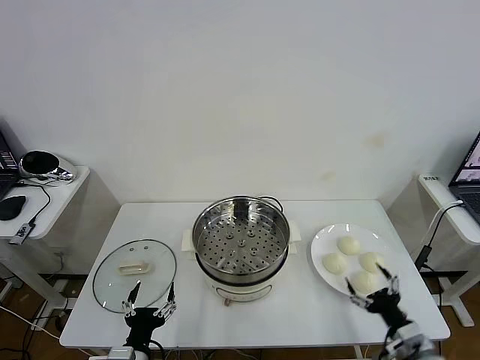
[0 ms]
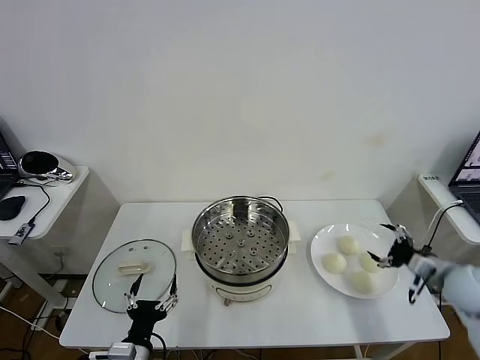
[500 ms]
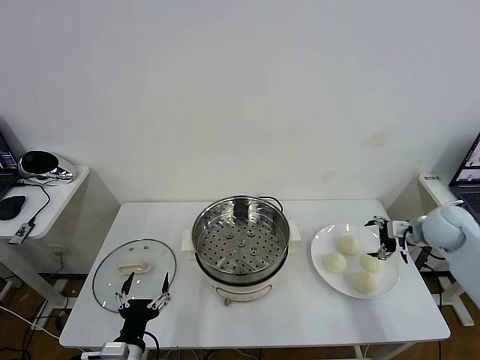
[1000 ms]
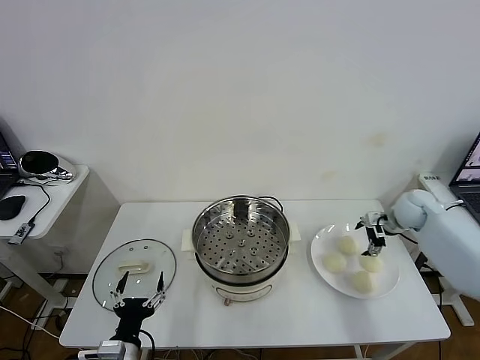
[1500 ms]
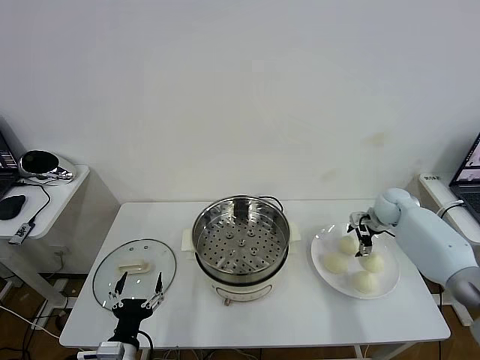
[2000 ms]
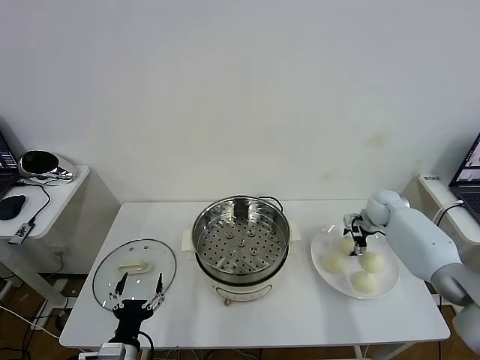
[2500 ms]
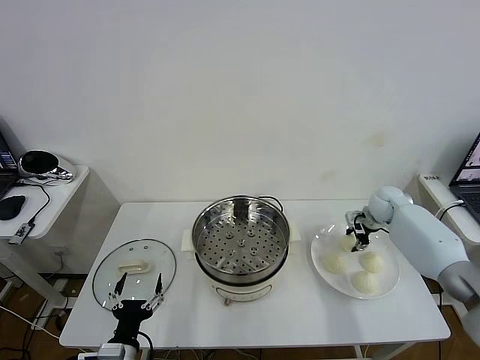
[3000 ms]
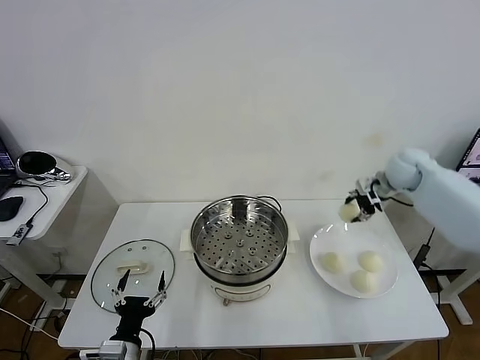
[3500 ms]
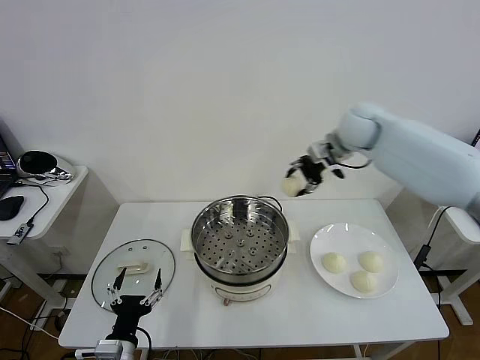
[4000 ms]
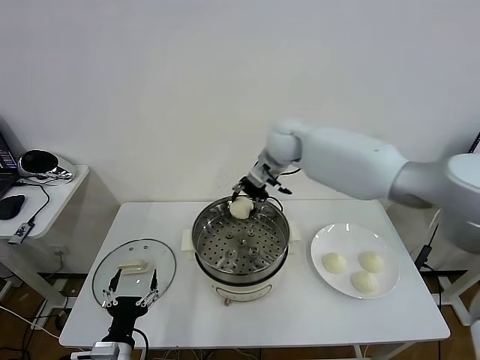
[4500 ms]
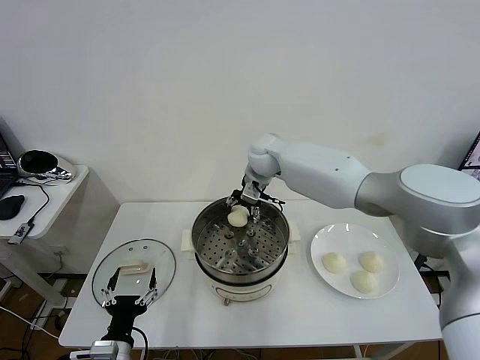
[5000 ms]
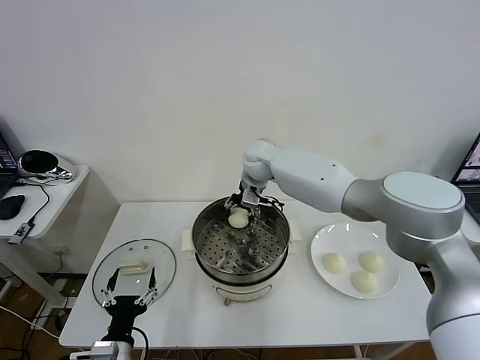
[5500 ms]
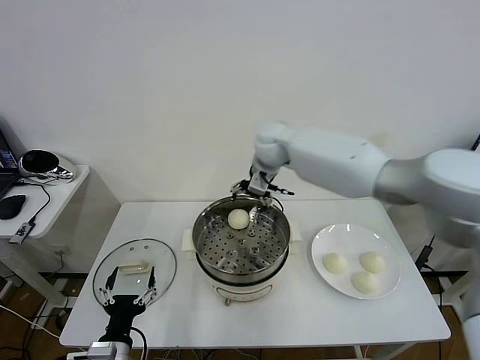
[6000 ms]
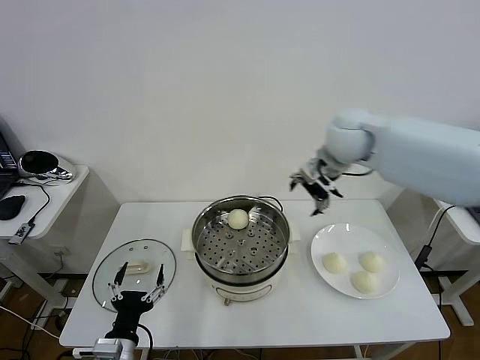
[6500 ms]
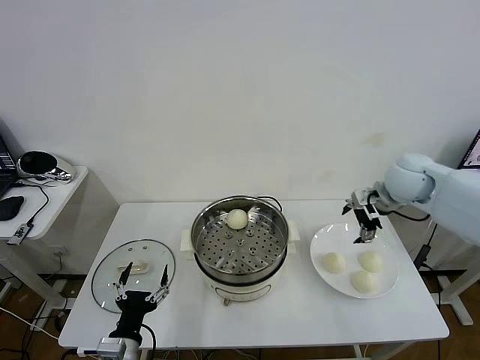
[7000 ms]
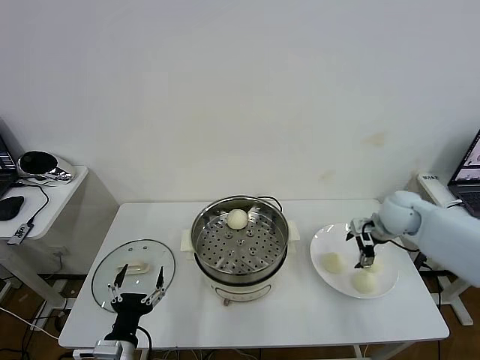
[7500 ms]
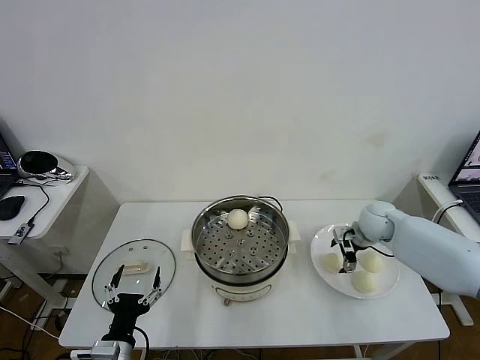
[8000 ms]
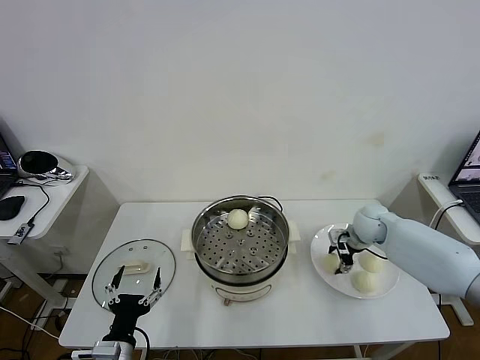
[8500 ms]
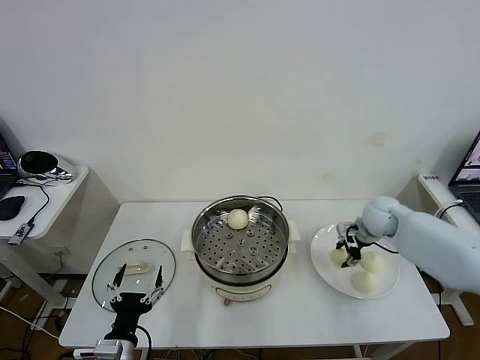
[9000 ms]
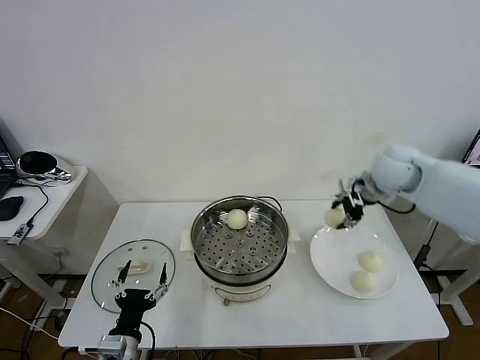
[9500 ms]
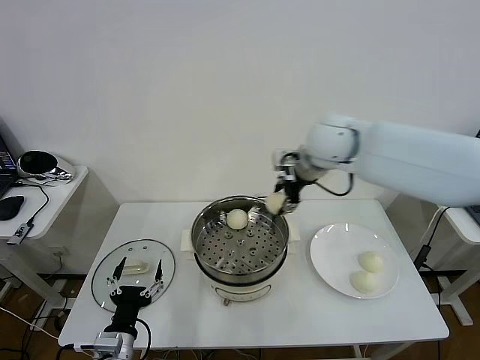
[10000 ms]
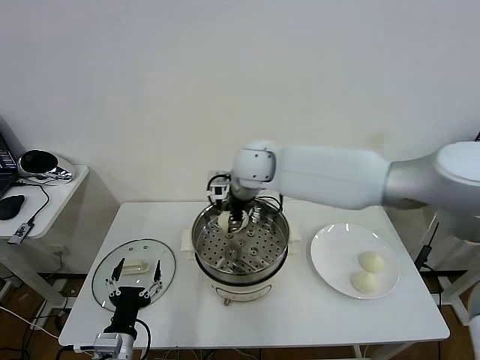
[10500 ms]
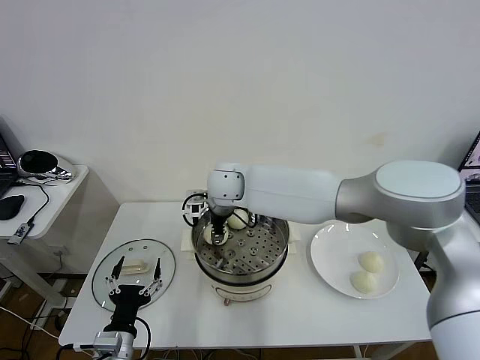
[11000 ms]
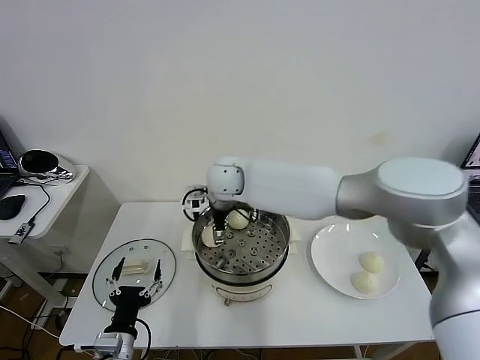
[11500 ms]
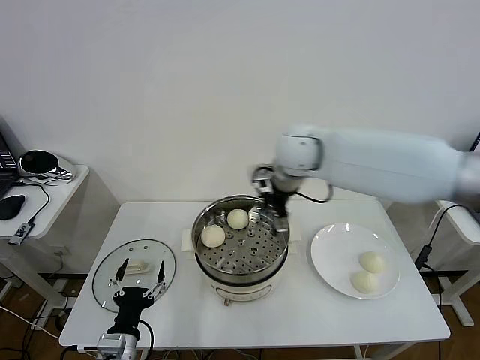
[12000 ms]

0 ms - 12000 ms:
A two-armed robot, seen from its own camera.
Task of the whole recording: take steamed baozi put them in steamer then cover it.
Step, 0 ms - 2500 ms: Grasp the baozi in the plate with right gripper.
Step, 3000 ms - 5500 ms: Place the baozi on the steamer with right gripper.
Step, 6000 ms - 8500 ms: Grasp the baozi in the plate with right gripper.
Step, 9000 ms - 11500 ms: Place the baozi on the steamer with right gripper.
2000 ms - 4000 ms: The right gripper moves upward and to the left, some 30 cm, and closes.
4000 ms - 6000 ms: The right gripper shifts roughly 10 cm to the left, and opens up.
6000 ms - 8000 ms: The right gripper is displaced to the right and downward by about 30 cm.
8000 ms - 10000 ms: The right gripper goes roughly 30 cm upward and to the left, and closes its fingers.
10000 ms - 12000 ms: The right gripper goes to the left and returns, roughly 15 cm each way, and opens up.

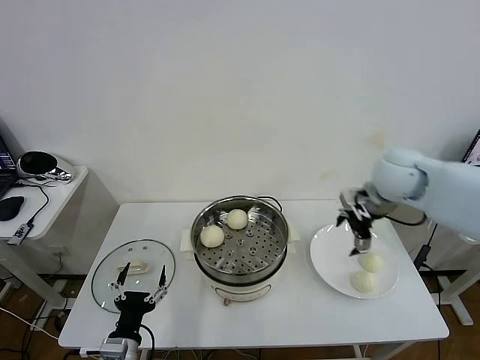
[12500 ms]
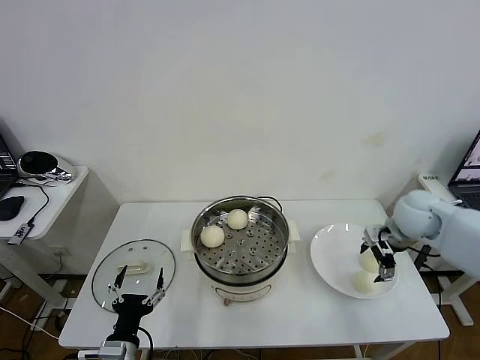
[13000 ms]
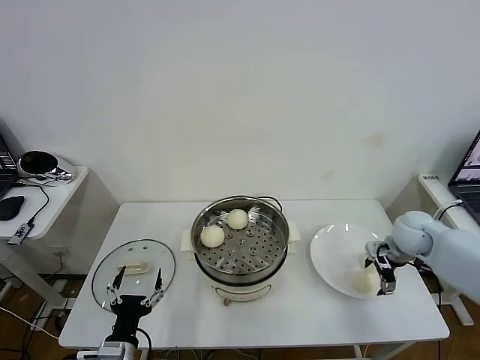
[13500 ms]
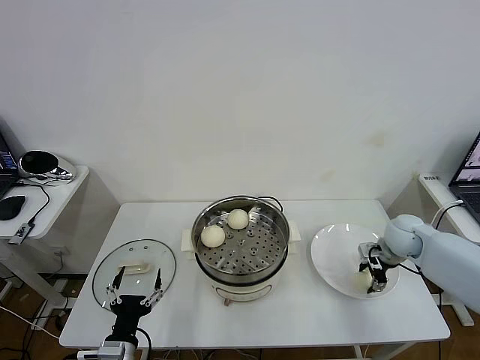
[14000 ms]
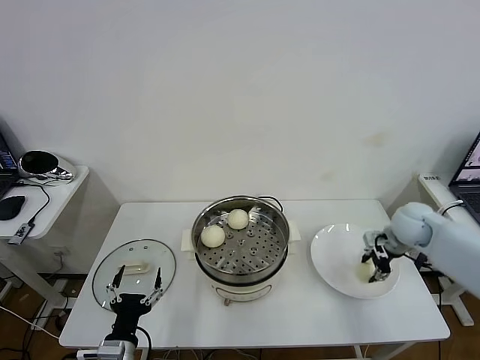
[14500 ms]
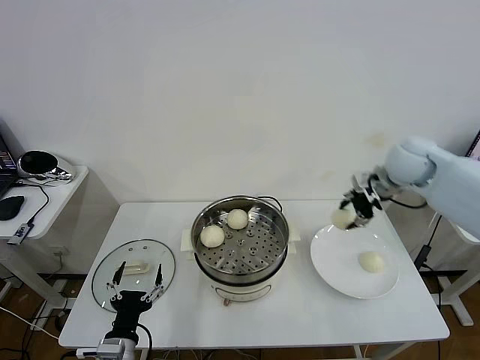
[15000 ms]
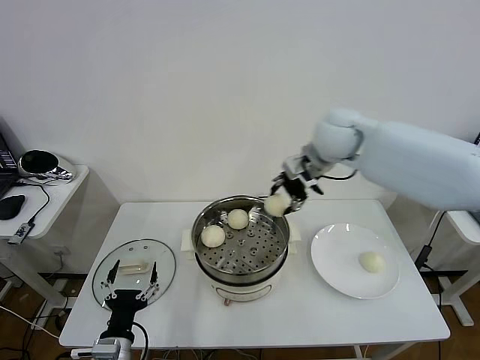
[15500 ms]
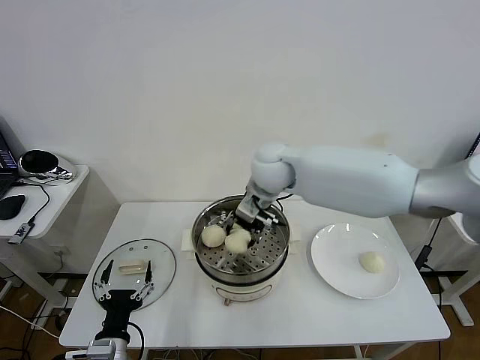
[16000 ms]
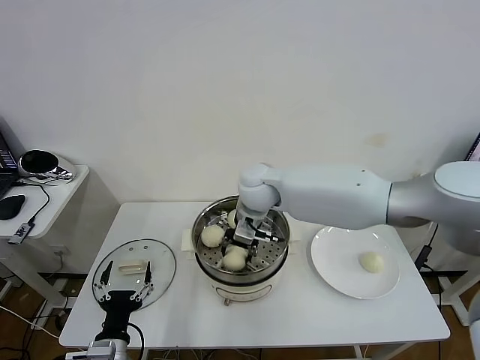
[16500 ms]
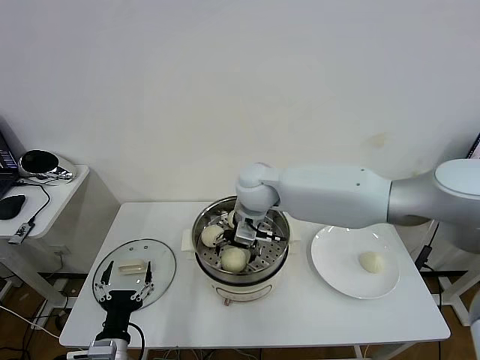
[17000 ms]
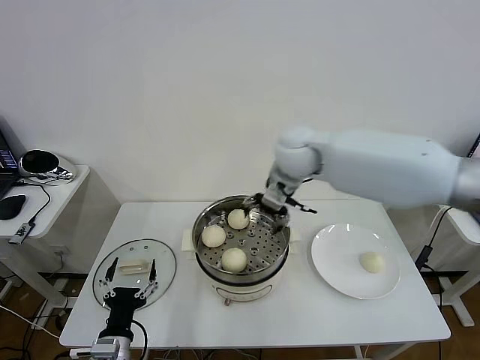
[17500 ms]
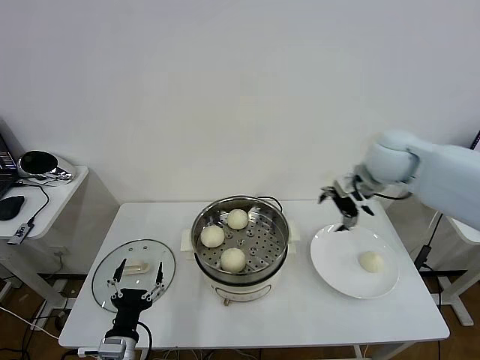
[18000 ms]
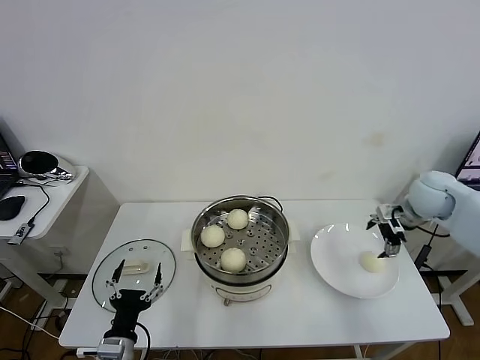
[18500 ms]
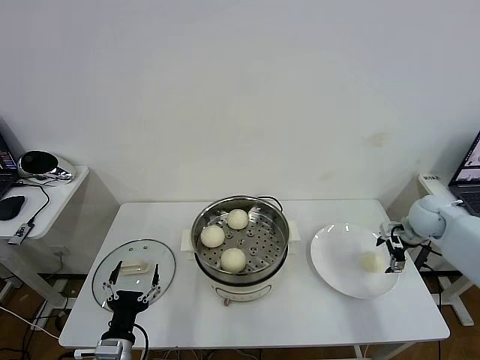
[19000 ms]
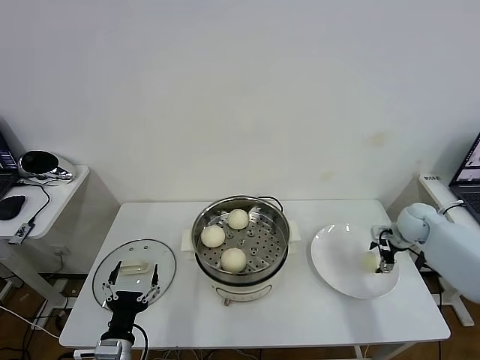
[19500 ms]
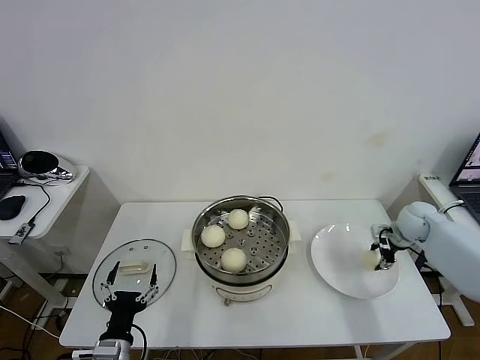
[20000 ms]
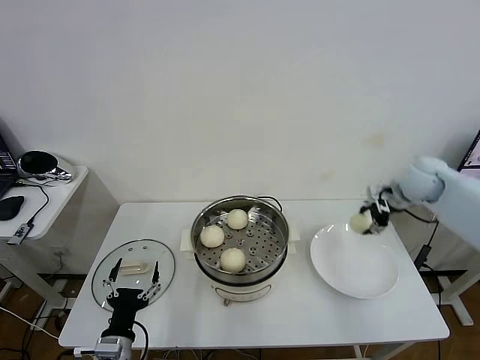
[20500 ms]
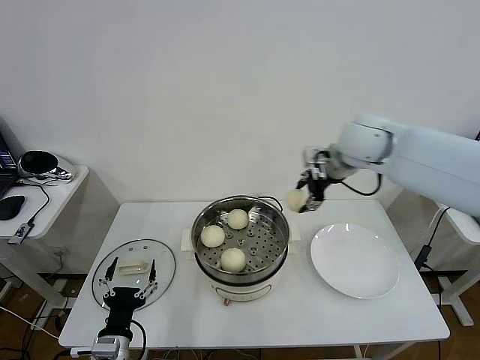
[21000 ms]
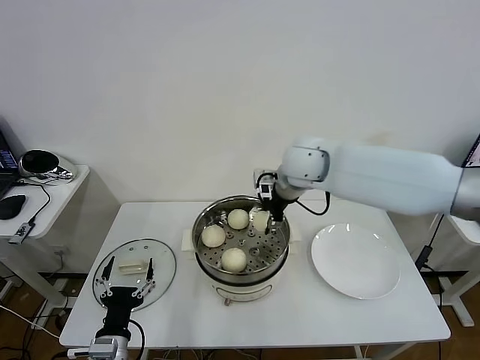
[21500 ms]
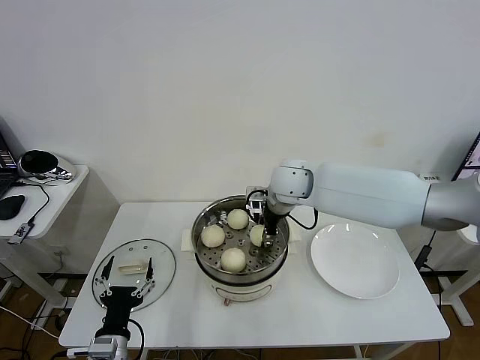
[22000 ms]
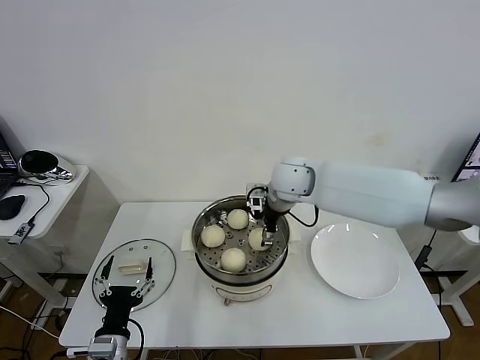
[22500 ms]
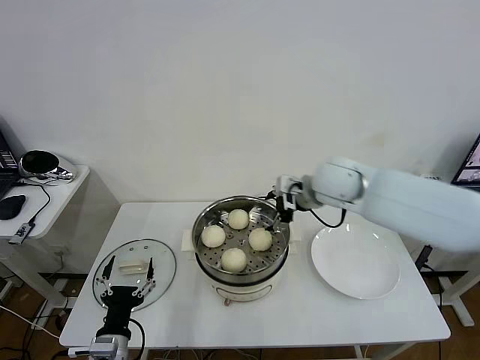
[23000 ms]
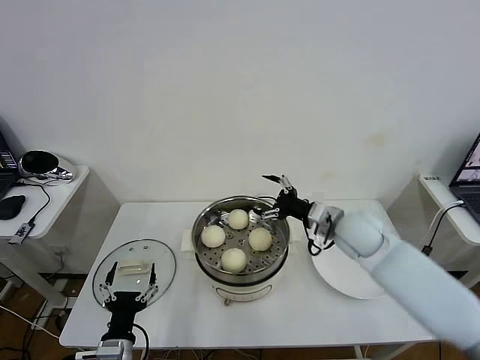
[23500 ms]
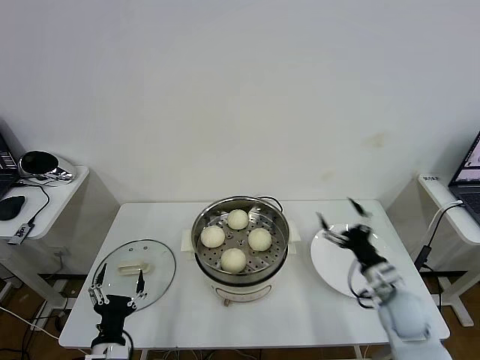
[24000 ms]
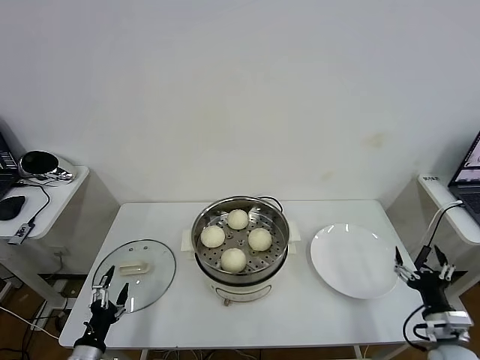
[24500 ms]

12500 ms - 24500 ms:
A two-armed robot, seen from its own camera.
Task of the whole recording: take steamed baozi put them in steamer then cover it.
Step, 12500 ms - 14000 ms: Grasp the baozi in the plate with right gripper.
Step, 14500 ms - 17000 ms: Place the baozi on the steamer with right gripper.
Step, 17500 ms - 19500 ms: Grasp the baozi in the plate with right gripper.
Step, 20000 ms - 22500 ms: Place the baozi on the steamer with right gripper.
12500 ms - 14500 ms: The right gripper heads downward and to the right, covering approximately 15 cm, and closes its fingers.
14500 ms - 16500 ms: The right gripper travels to the left by some 35 cm.
16500 ms - 18500 ms: The right gripper heads to the right, covering roughly 40 cm, and opens up.
18500 ms - 20500 ms: The right gripper reaches roughly 10 cm downward, then returns, and closes up.
20500 ms - 22500 ms: The right gripper travels to the left by some 30 cm, and opens up.
22500 ms - 24500 ms: The left gripper travels to the left and downward by roughly 10 cm; the right gripper travels backward, to the right and downward by roughly 50 cm.

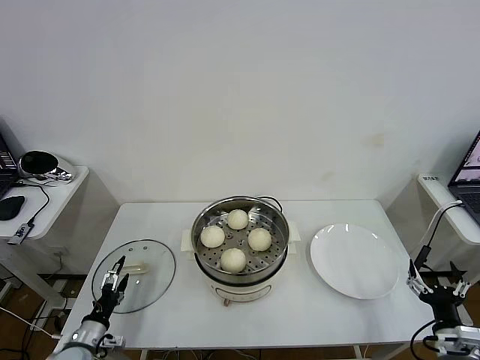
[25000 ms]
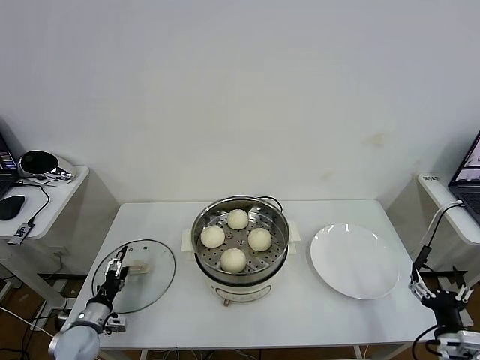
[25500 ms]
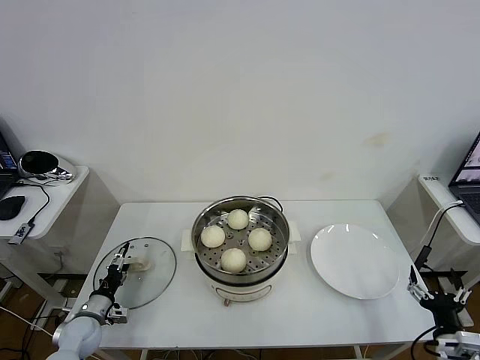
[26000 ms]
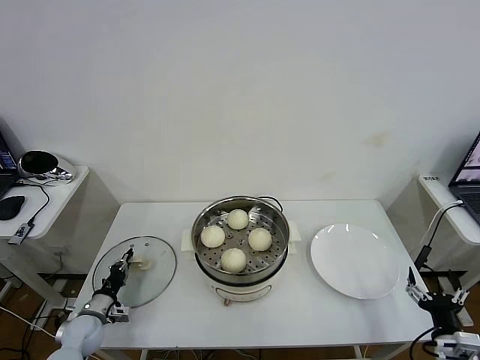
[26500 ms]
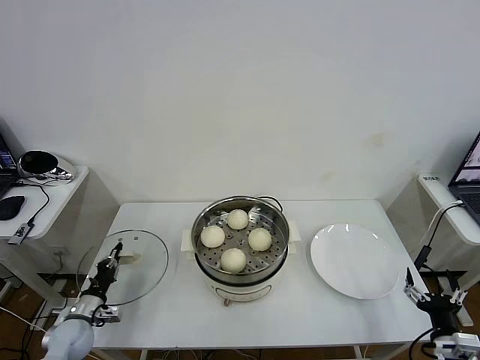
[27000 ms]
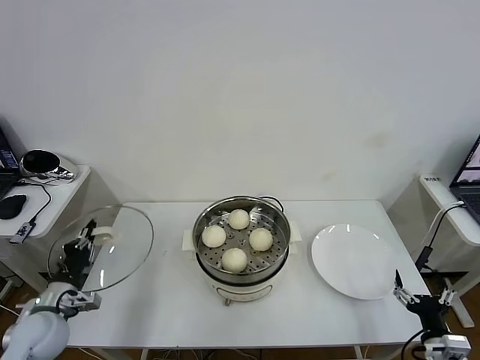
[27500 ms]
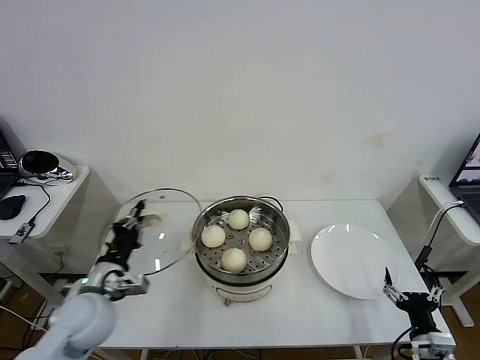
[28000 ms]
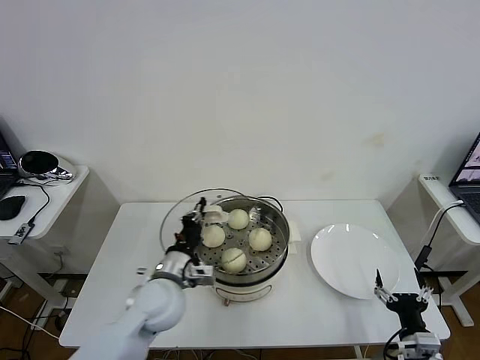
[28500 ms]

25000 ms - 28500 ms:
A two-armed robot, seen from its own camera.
Task of the whole recording: take steamed baozi put them in steamer then cover it.
25000 ms - 27000 ms: The left gripper is displaced forward by about 5 cm, and closes its fingers.
27000 ms - 28500 ms: The right gripper heads to the left, covering roughly 5 cm. The left gripper moves to the right and upward, roughly 30 cm.
